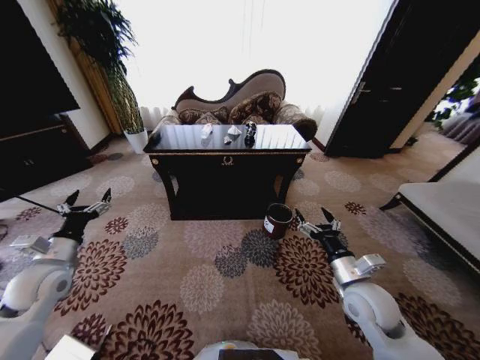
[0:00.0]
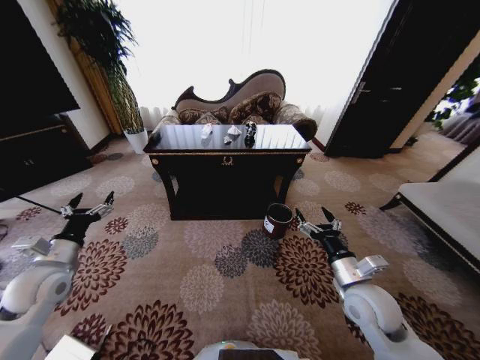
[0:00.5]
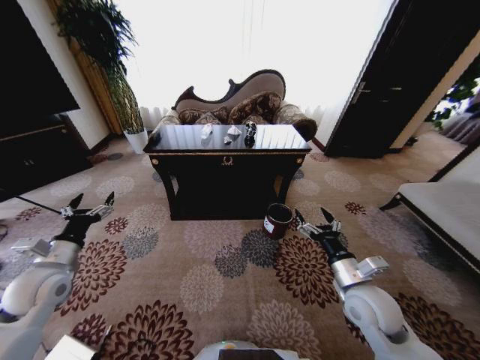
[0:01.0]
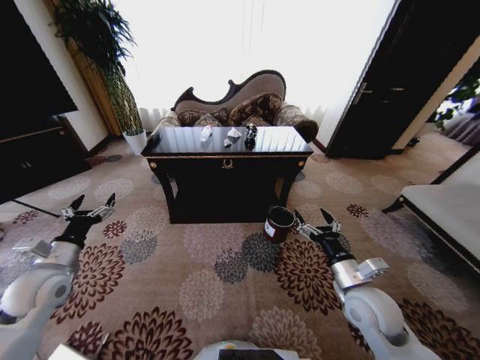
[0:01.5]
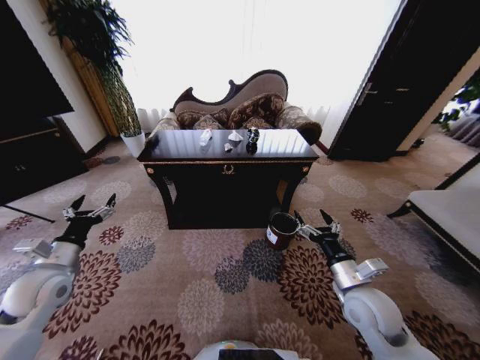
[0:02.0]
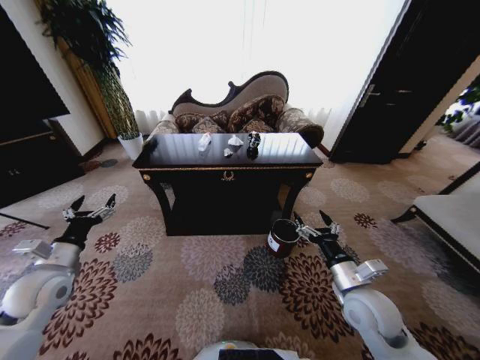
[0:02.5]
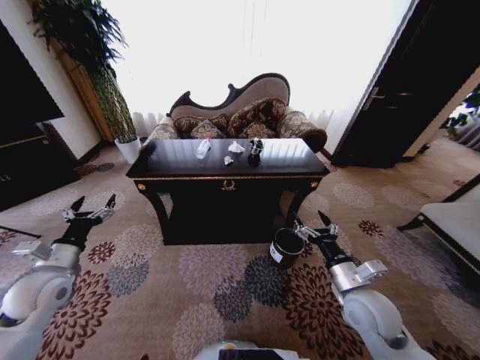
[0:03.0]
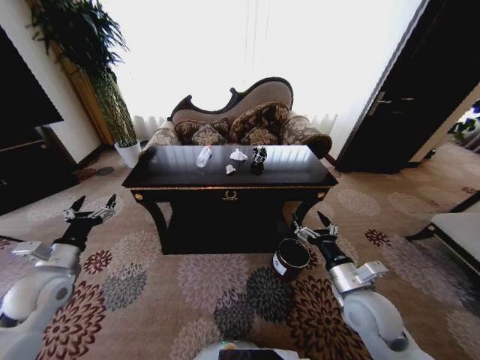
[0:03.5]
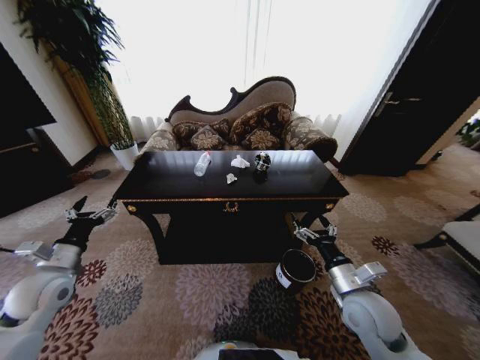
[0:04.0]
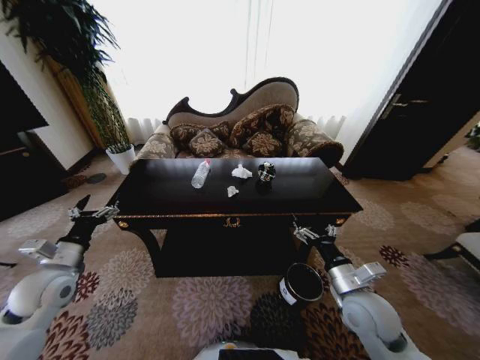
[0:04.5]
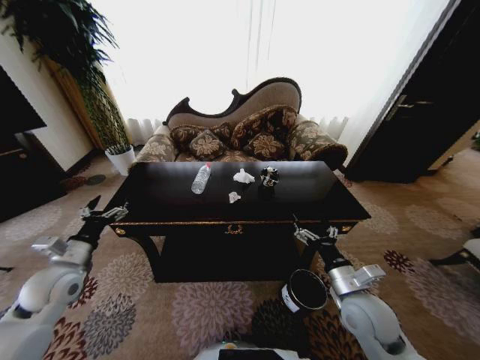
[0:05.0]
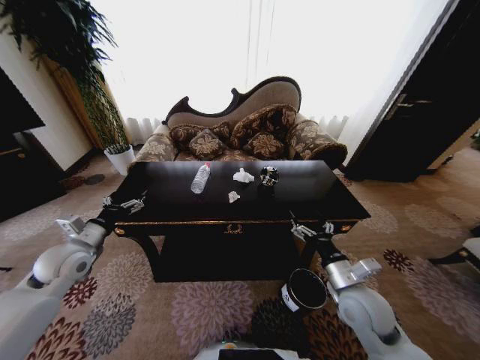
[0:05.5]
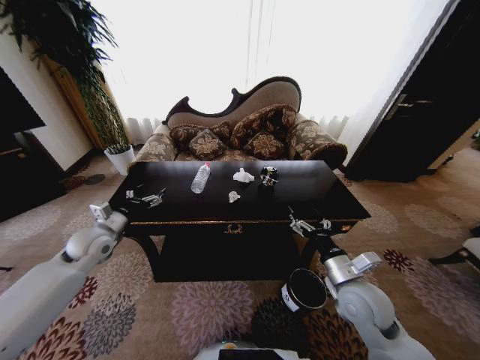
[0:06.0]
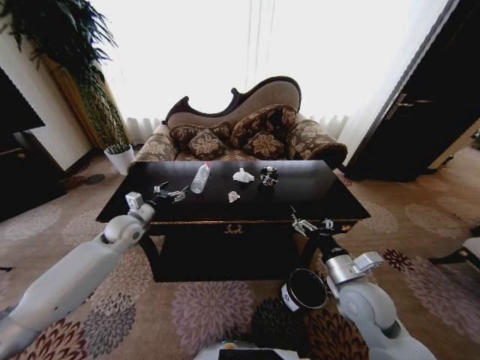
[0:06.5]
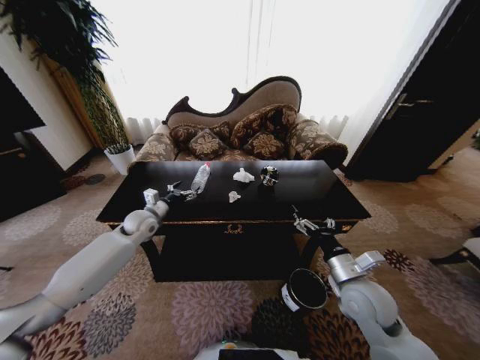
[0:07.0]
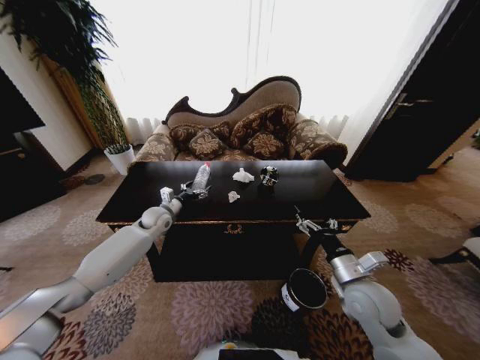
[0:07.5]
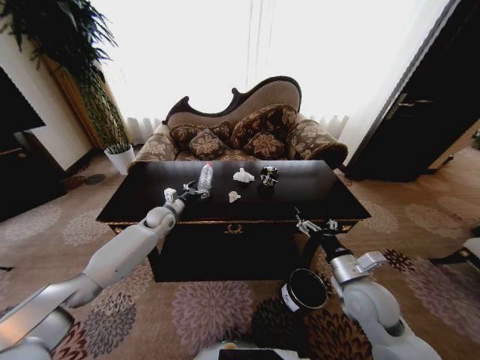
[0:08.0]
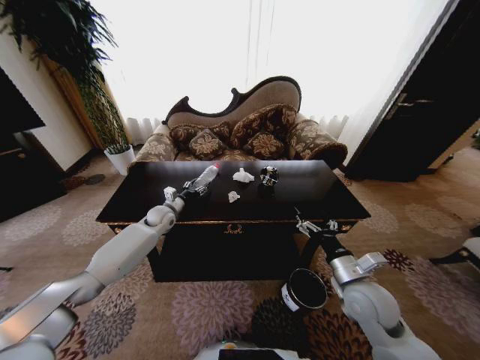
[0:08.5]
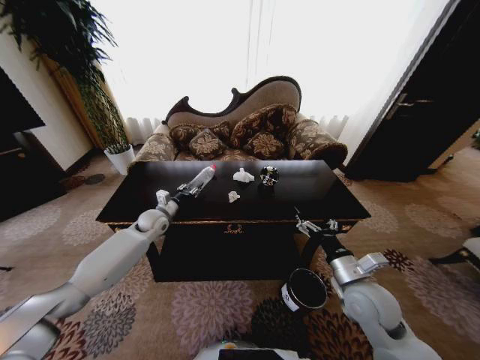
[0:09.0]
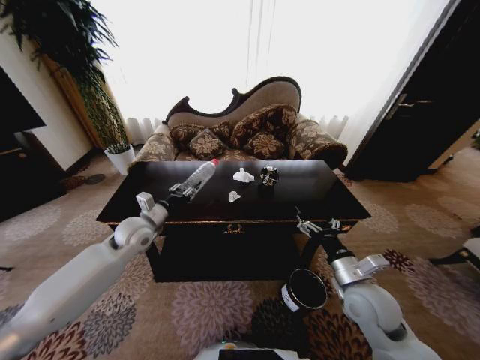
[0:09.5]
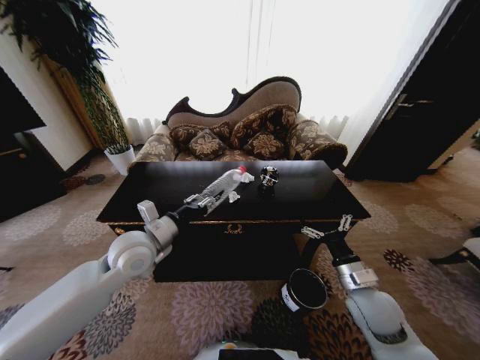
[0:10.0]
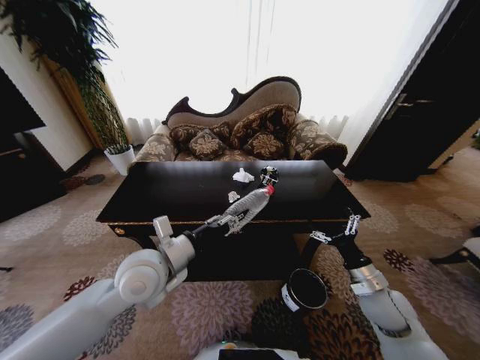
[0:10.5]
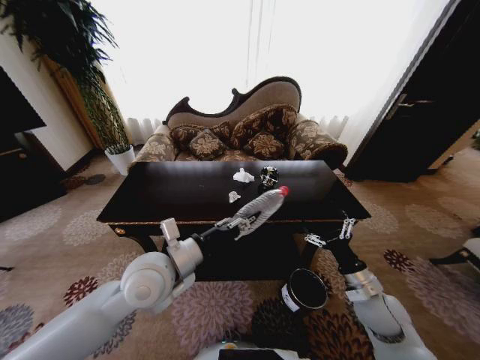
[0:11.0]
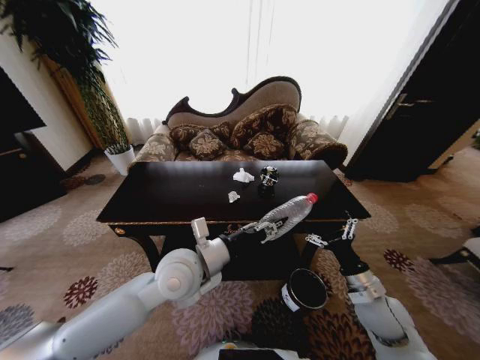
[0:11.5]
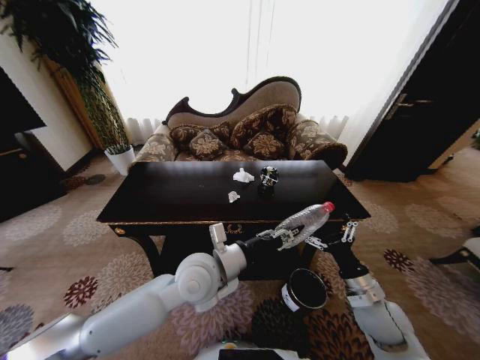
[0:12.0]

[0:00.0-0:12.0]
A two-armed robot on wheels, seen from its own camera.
Task of the whole recording: Move to the front of the table and place the trash on the table into the trash bin.
0:04.0 to 0:06.0: The left gripper travels forward by about 10 cm.
0:06.0 to 0:08.0: The left gripper is displaced forward, to the right and downward by some 20 cm.
0:08.0 to 0:10.0: The left gripper shifts approximately 25 cm backward and upward, and closes its fingers.
0:10.0 to 0:12.0: The left gripper heads to the right, covering approximately 15 cm.

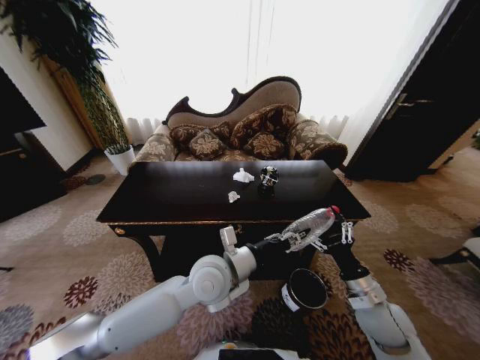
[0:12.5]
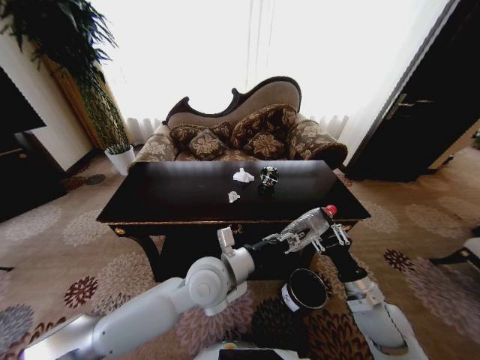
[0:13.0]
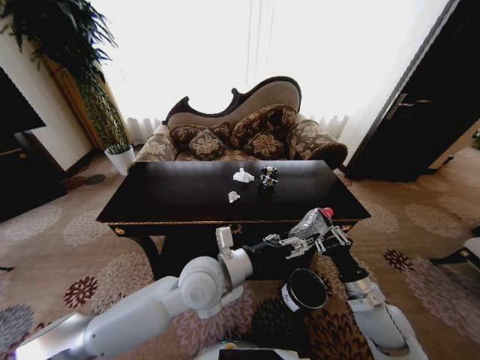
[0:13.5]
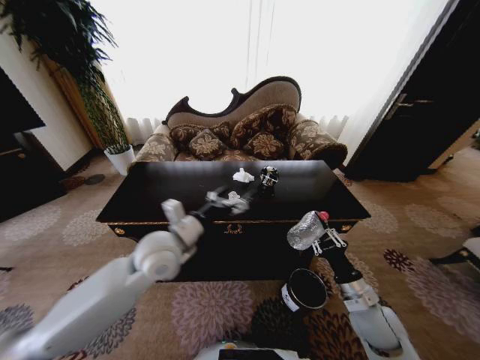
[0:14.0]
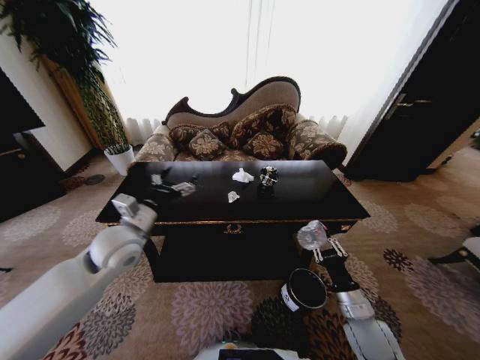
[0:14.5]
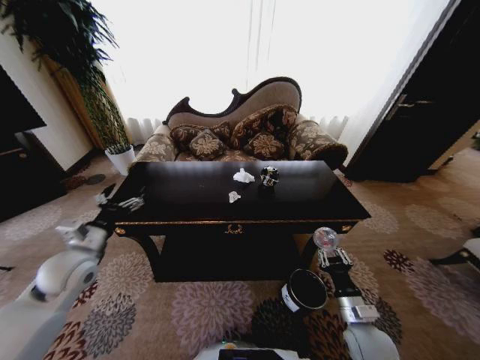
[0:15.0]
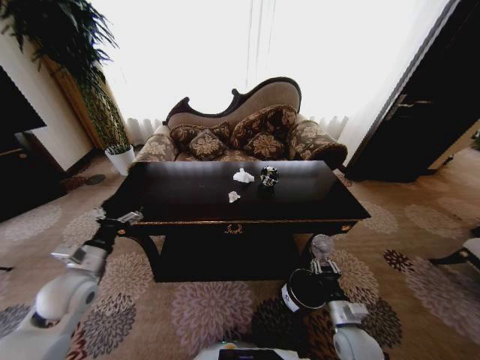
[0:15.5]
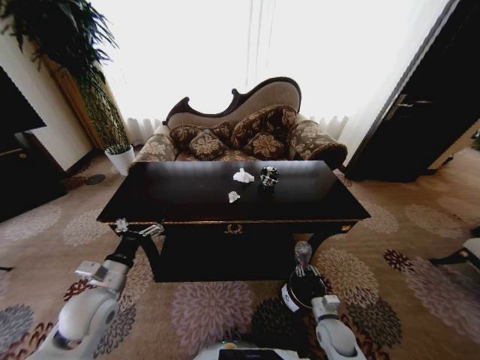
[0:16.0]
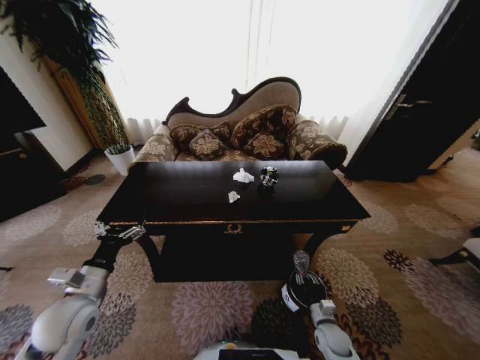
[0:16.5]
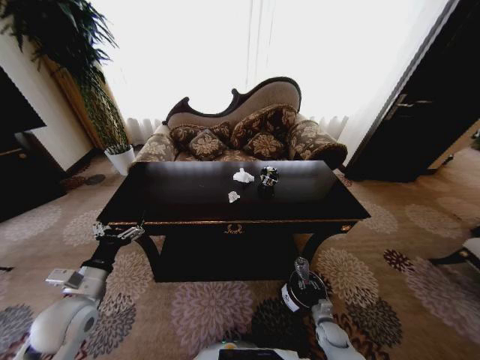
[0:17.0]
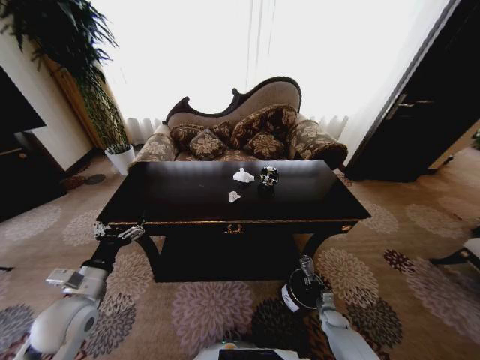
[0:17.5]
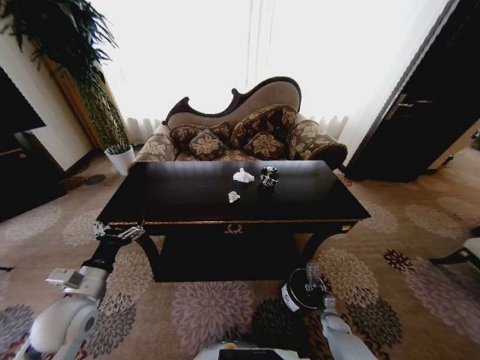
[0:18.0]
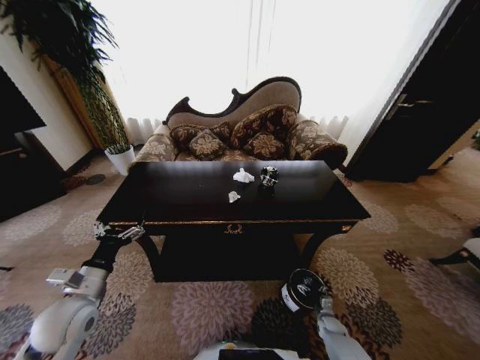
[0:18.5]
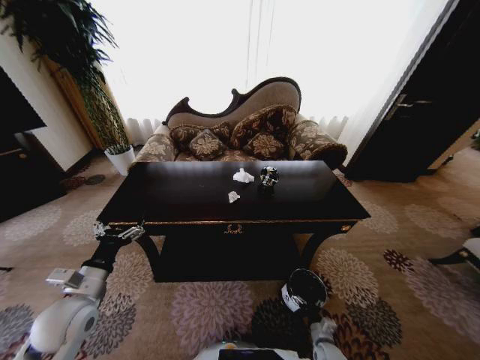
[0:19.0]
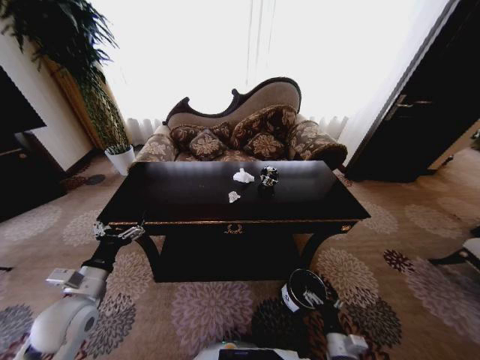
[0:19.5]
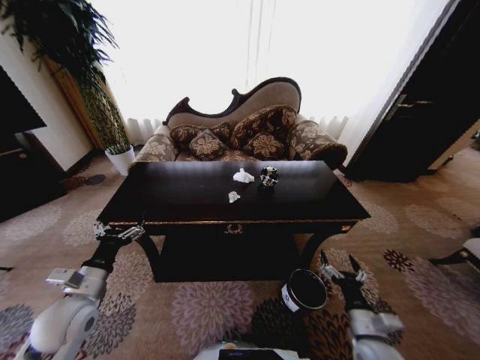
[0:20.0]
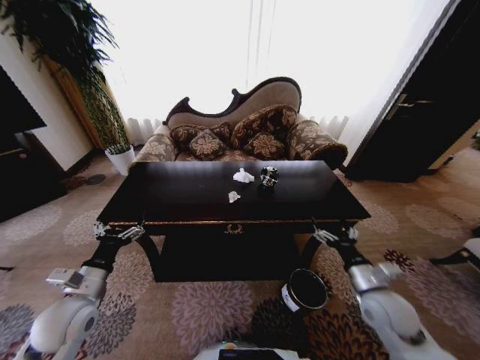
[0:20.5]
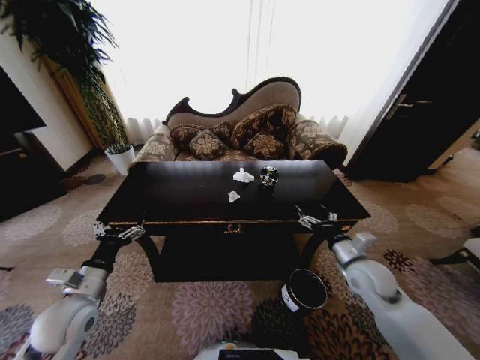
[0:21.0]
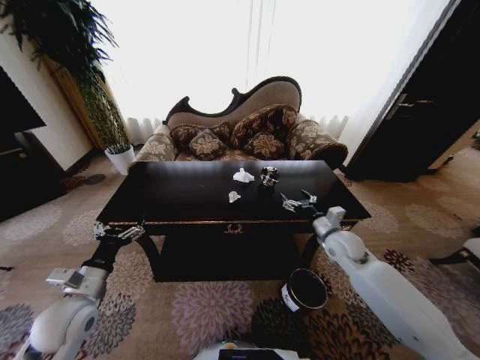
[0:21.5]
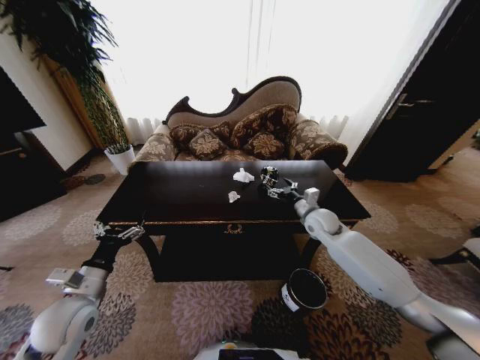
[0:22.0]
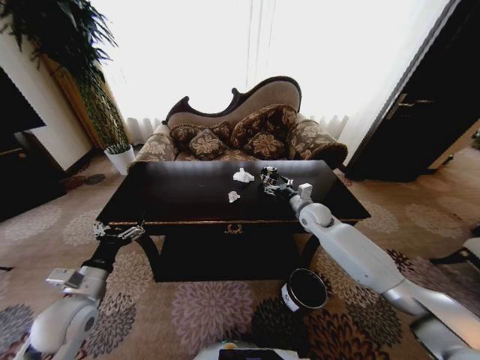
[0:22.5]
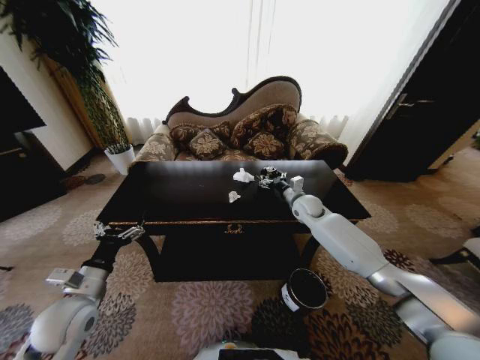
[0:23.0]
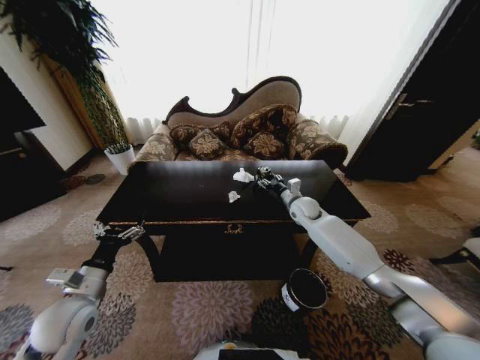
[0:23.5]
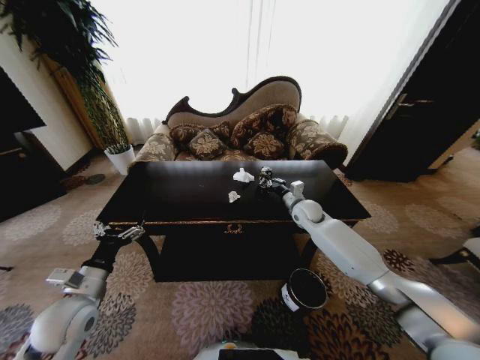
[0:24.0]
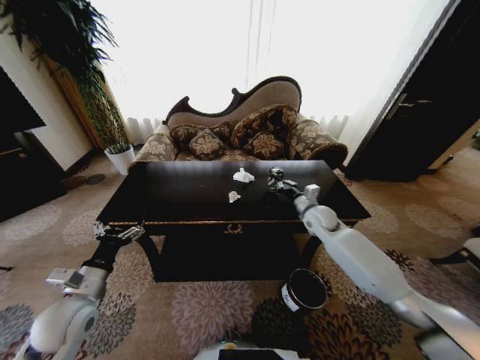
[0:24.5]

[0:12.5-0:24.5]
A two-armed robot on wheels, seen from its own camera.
Task of the whole recording: Move to the front of the table and place the trash on the table into the trash bin.
0:12.5 to 0:14.5: The right gripper changes place by approximately 5 cm, and closes. Meanwhile the left gripper is displaced to the left by some 20 cm, and opens up.
0:14.5 to 0:16.5: The right gripper is displaced downward by some 20 cm. The left gripper shifts roughly 20 cm backward, downward and to the left.
0:16.5 to 0:18.5: The right gripper goes about 15 cm downward and to the right, and opens its fingers.
0:18.5 to 0:20.5: The right gripper moves upward, about 35 cm.
0:20.5 to 0:22.5: The right gripper moves forward, some 25 cm.
0:22.5 to 0:24.5: The right gripper closes.

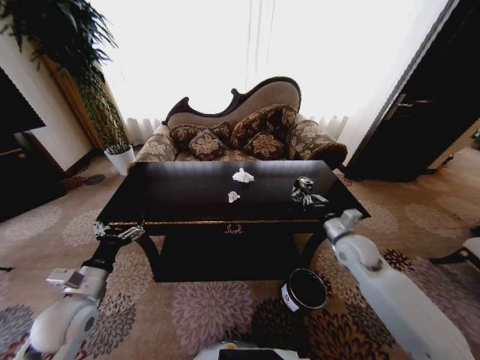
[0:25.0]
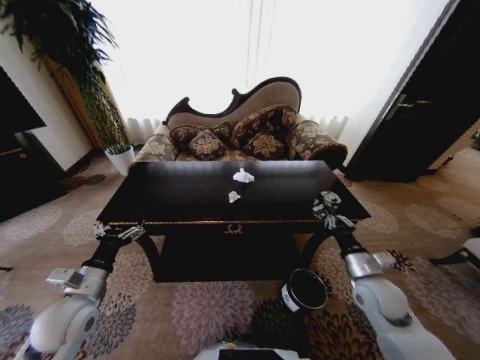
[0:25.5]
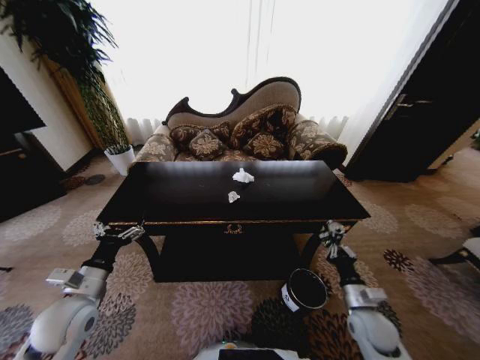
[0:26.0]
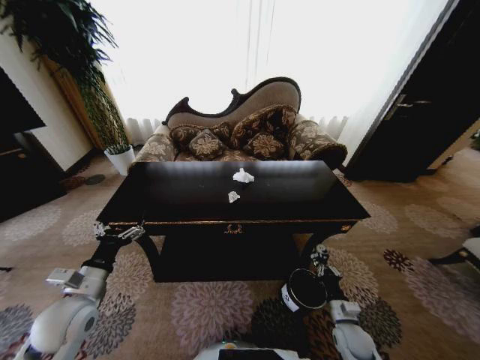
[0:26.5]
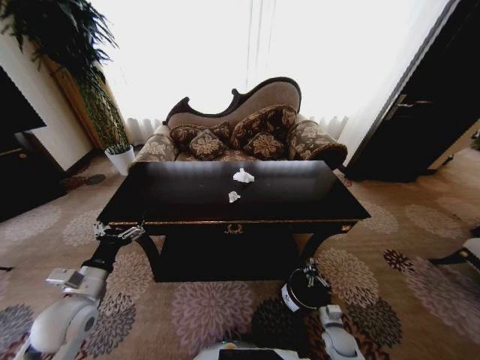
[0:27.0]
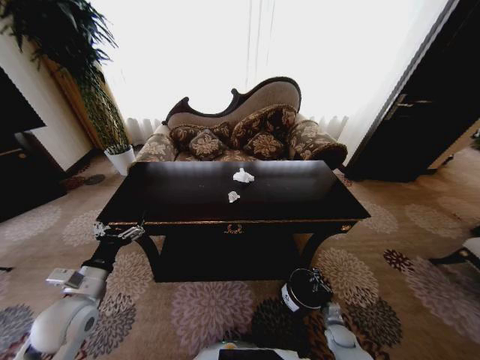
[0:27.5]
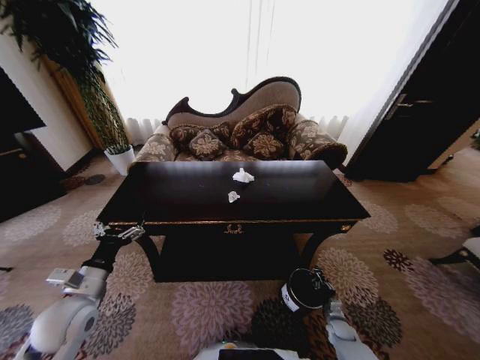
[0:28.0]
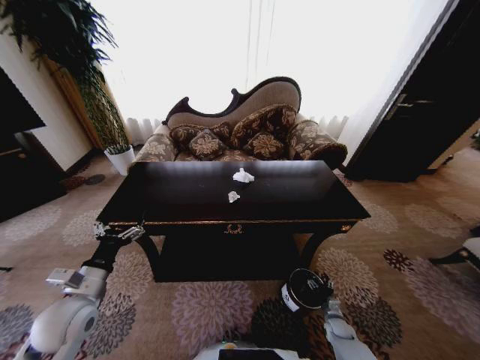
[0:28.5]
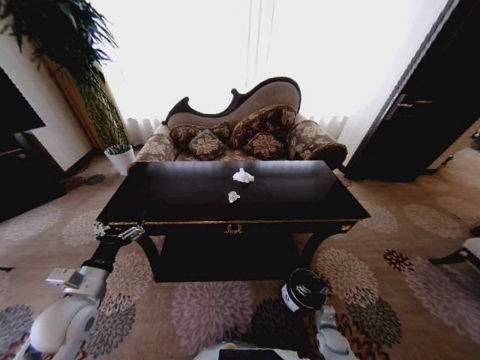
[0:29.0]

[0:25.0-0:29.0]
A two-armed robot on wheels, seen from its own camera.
Task of the whole recording: Move to the front of the table and place the trash on the table into the trash bin.
0:25.0 to 0:27.0: The right gripper shifts about 35 cm downward and backward.
0:27.0 to 0:29.0: The right gripper opens up.
